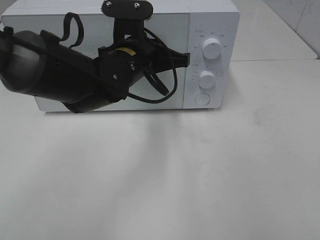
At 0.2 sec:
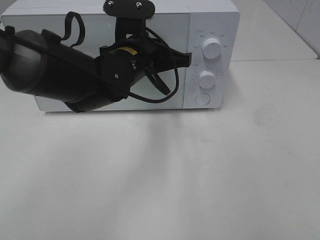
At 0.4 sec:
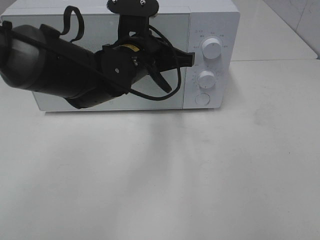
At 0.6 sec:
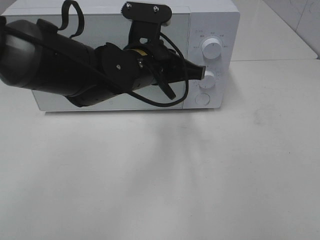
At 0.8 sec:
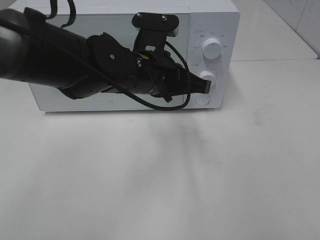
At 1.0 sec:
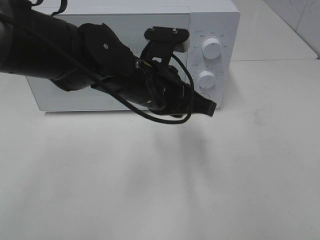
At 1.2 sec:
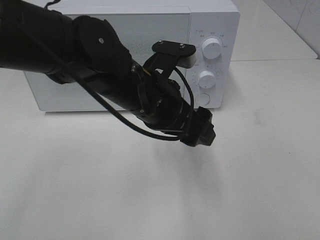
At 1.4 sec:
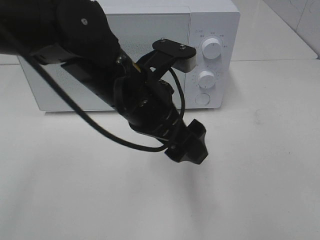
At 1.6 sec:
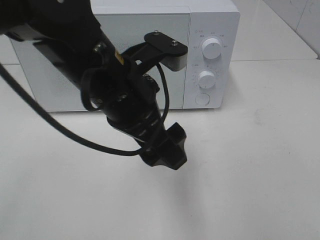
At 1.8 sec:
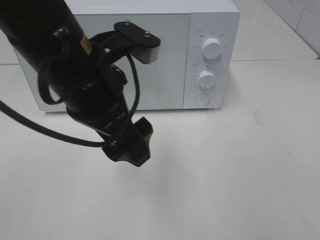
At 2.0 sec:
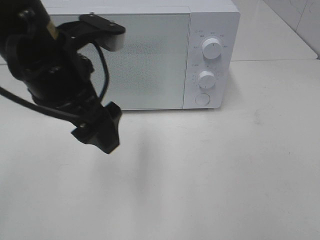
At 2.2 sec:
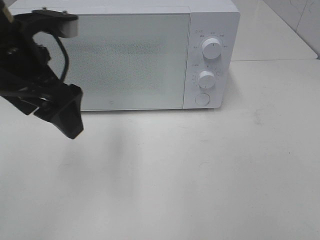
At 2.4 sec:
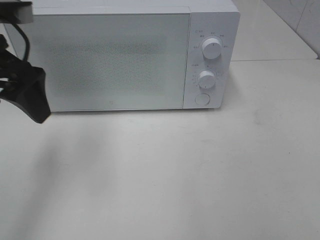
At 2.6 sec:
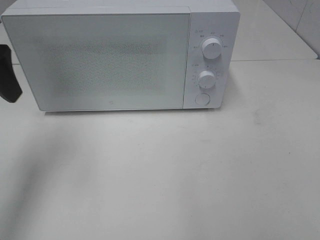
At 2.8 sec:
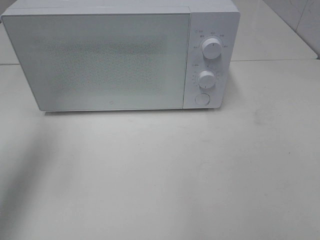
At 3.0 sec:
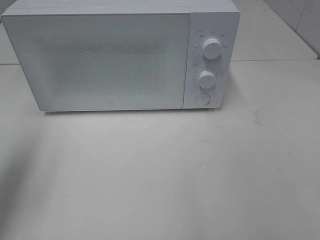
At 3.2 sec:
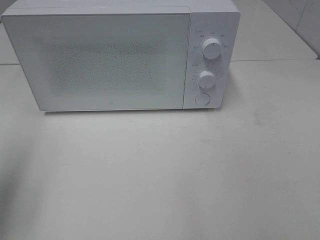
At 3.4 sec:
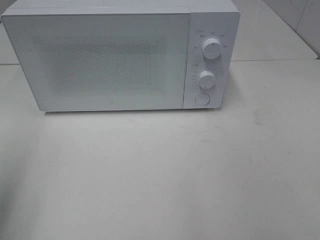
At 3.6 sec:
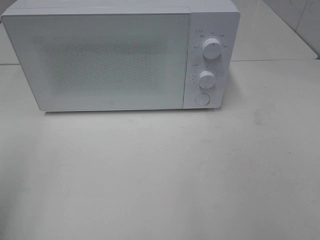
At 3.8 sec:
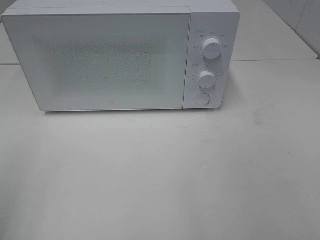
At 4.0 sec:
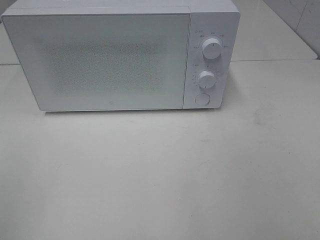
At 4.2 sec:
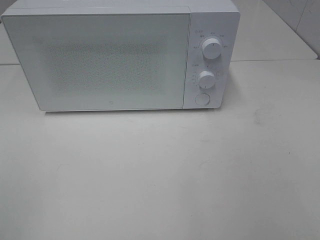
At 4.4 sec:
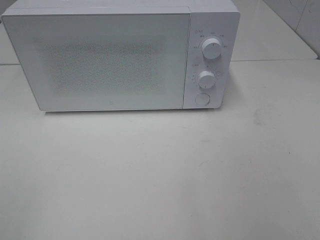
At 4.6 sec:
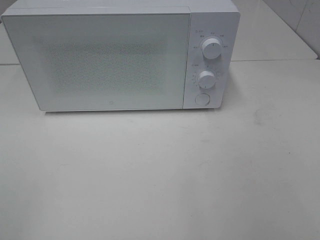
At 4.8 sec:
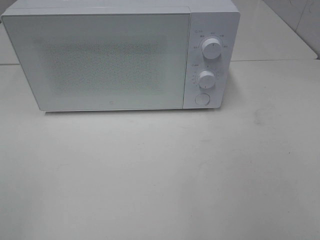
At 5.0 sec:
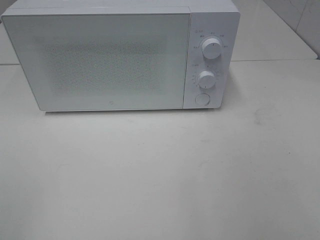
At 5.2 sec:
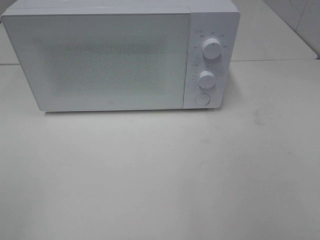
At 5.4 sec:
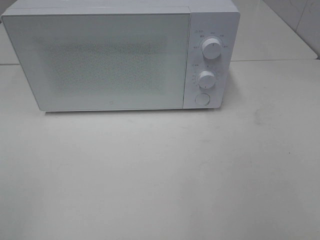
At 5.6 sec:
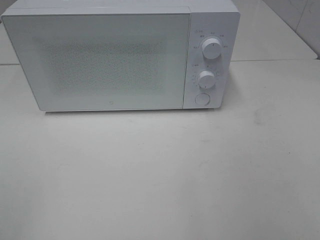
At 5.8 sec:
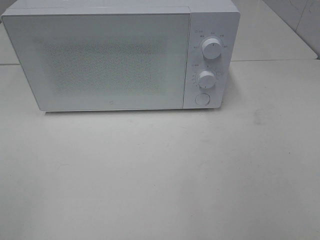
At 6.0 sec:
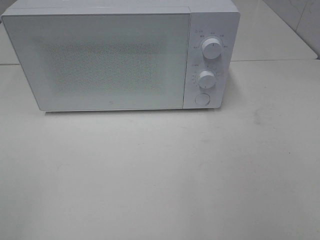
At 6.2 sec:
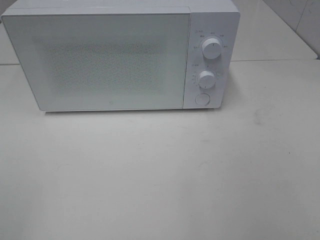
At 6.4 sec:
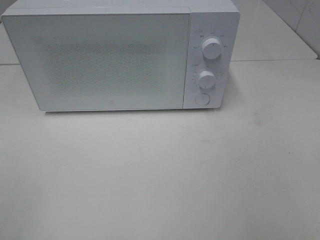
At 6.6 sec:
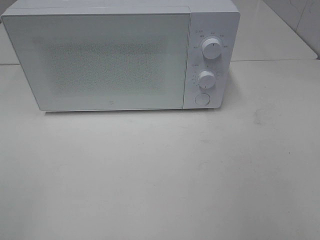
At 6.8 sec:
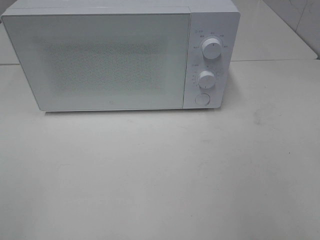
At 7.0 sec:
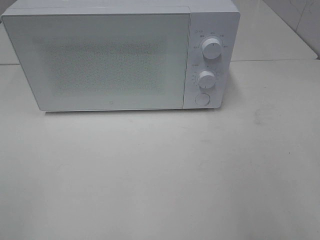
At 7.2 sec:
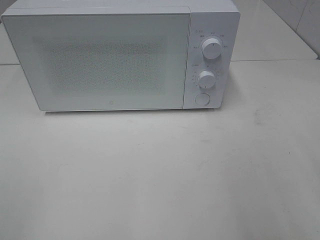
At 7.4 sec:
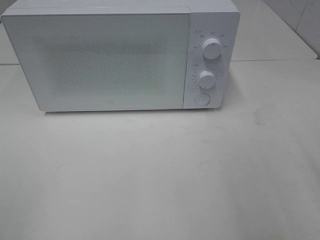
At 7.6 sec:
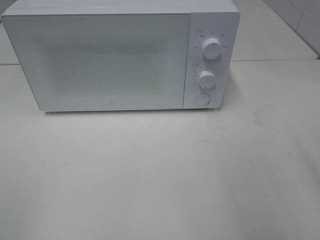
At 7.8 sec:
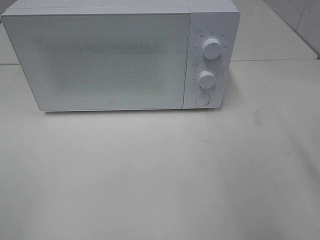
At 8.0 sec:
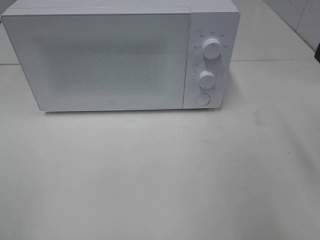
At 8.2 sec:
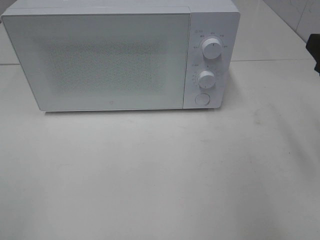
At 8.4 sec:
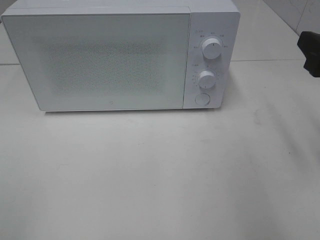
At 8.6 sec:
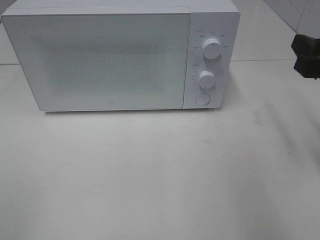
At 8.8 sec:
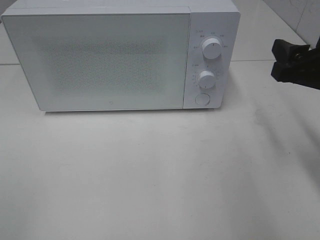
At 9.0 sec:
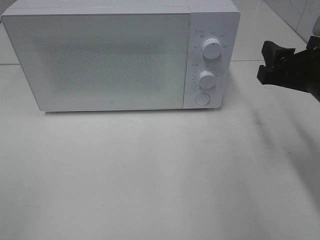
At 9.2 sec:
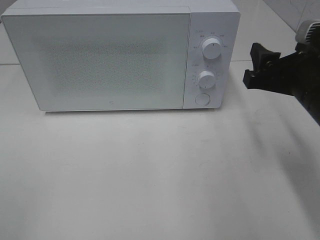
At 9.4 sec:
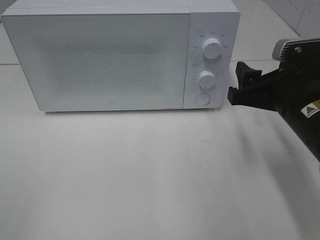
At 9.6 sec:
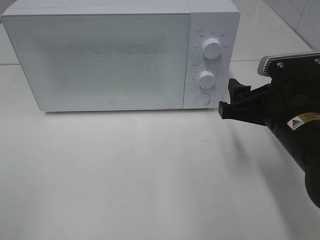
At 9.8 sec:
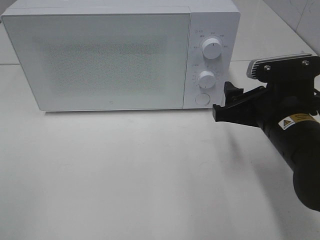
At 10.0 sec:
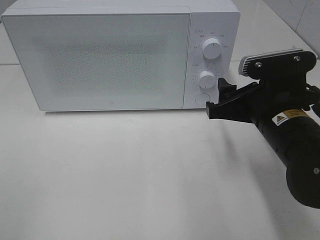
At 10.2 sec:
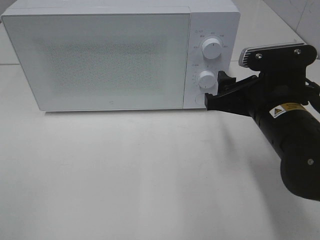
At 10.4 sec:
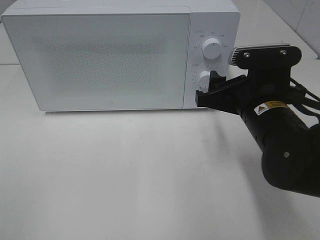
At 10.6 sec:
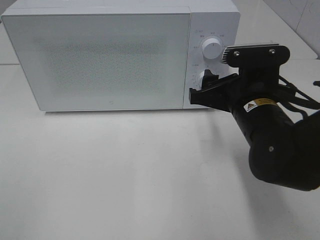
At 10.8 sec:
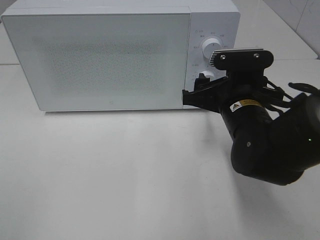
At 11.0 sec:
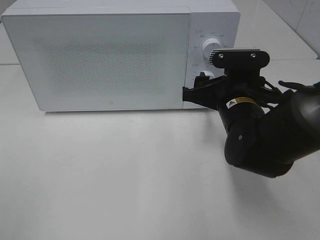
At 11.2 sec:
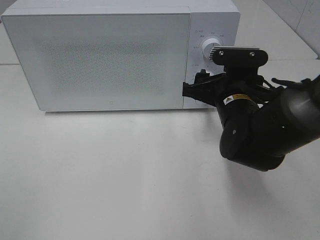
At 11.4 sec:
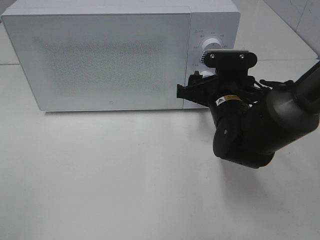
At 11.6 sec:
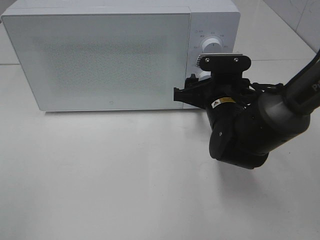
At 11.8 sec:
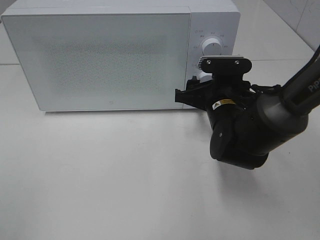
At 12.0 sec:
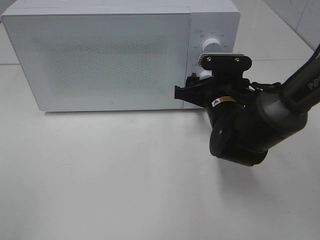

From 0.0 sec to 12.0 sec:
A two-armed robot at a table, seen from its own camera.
Task of the whole recording: Heat the burger.
From 0.0 sec to 1.6 sec: The left gripper travels backward and upward by approximately 10 cm, and opens up.
From 1.6 sec to 3.0 sec: The left gripper travels to the left by approximately 25 cm.
From 3.0 sec to 4.4 sec: The left gripper heads backward, covering about 20 cm.
From 4.4 sec to 6.0 sec: Neither gripper changes place.
From 7.6 sec to 9.0 sec: The right gripper goes some 10 cm forward.
From 9.0 sec to 10.4 sec: The right gripper moves to the left, some 10 cm.
From 10.4 sec to 12.0 sec: The right gripper shifts some 10 cm forward and downward.

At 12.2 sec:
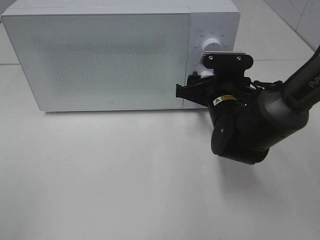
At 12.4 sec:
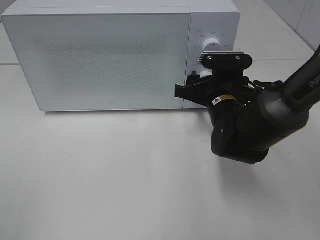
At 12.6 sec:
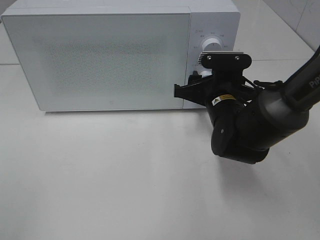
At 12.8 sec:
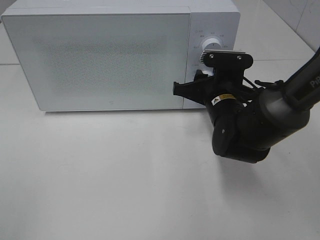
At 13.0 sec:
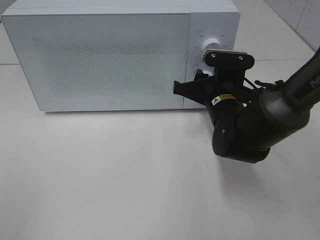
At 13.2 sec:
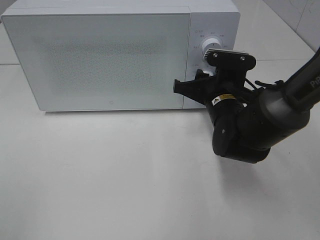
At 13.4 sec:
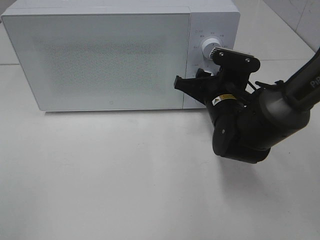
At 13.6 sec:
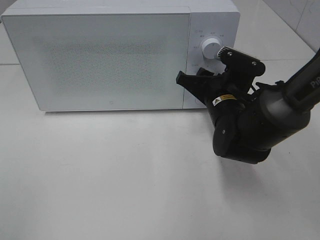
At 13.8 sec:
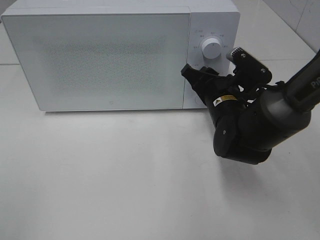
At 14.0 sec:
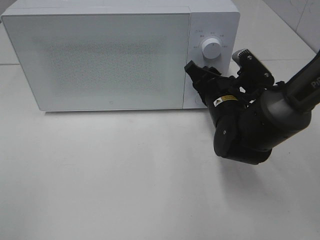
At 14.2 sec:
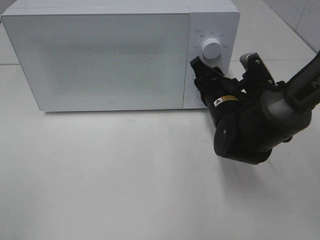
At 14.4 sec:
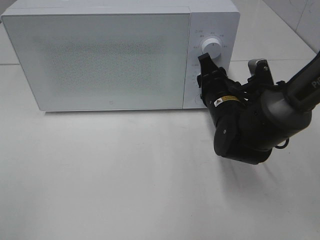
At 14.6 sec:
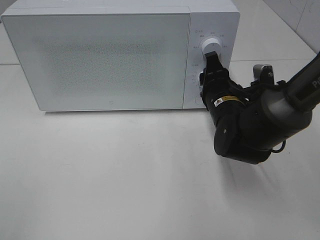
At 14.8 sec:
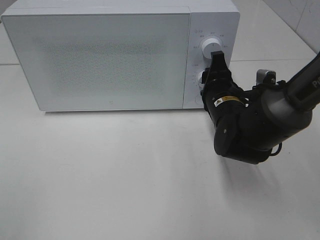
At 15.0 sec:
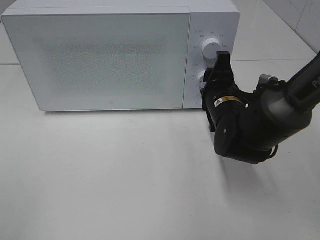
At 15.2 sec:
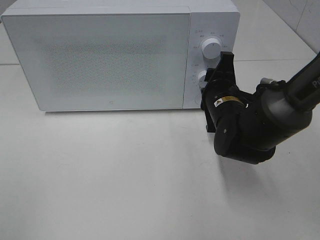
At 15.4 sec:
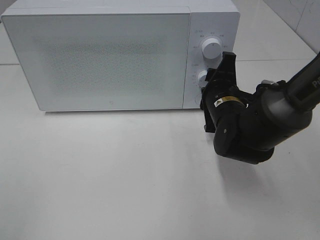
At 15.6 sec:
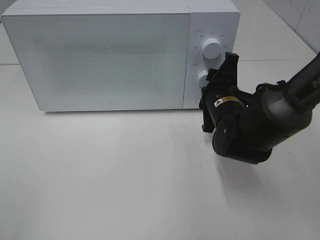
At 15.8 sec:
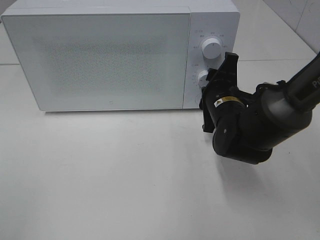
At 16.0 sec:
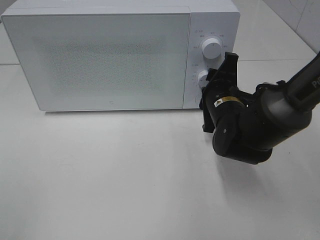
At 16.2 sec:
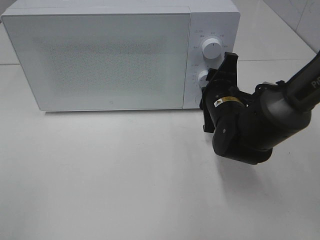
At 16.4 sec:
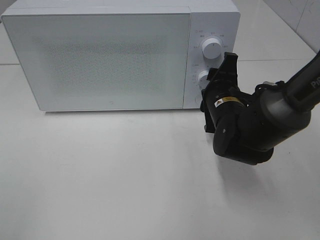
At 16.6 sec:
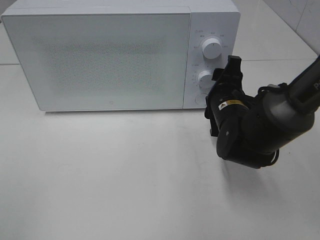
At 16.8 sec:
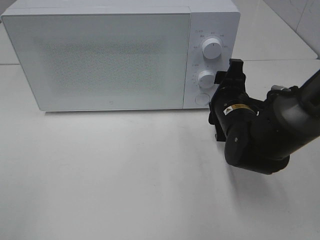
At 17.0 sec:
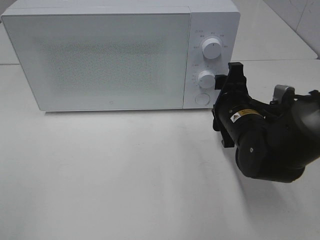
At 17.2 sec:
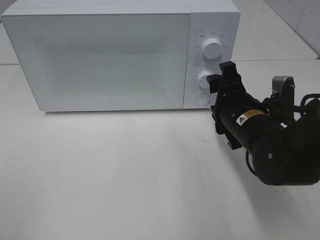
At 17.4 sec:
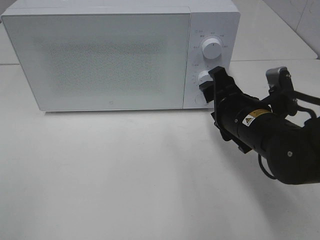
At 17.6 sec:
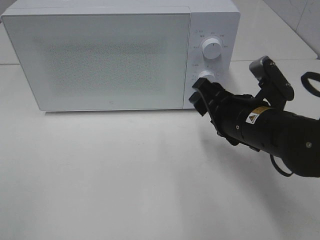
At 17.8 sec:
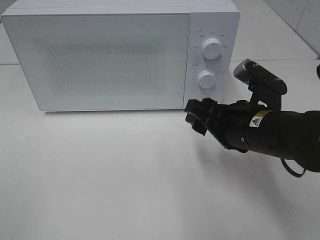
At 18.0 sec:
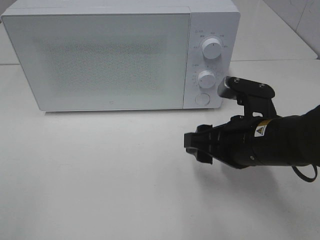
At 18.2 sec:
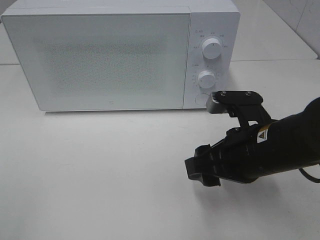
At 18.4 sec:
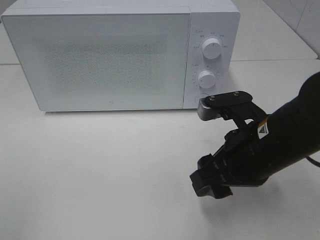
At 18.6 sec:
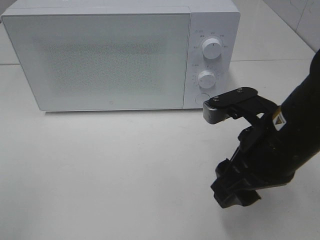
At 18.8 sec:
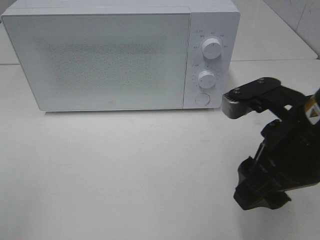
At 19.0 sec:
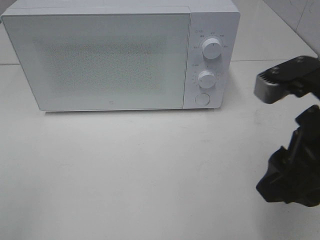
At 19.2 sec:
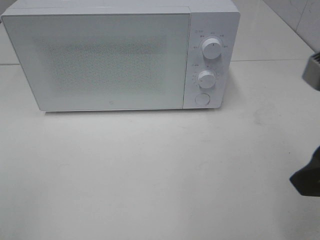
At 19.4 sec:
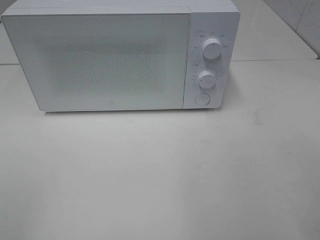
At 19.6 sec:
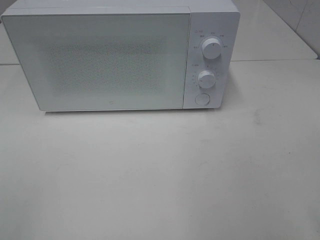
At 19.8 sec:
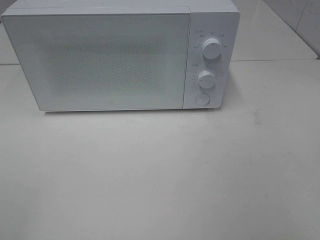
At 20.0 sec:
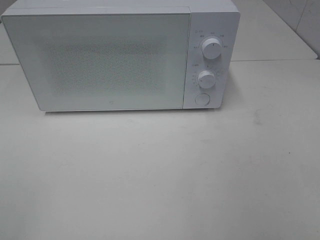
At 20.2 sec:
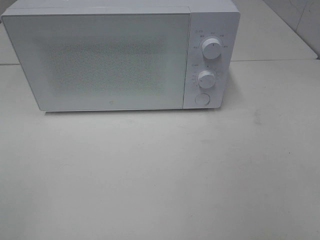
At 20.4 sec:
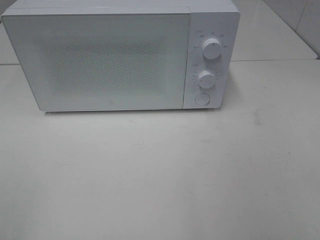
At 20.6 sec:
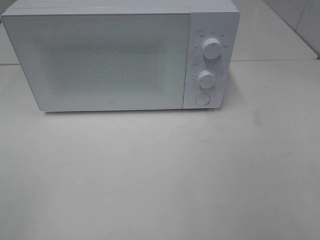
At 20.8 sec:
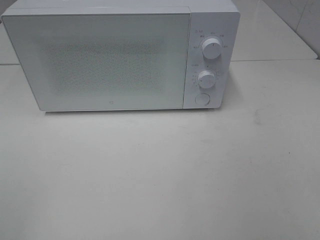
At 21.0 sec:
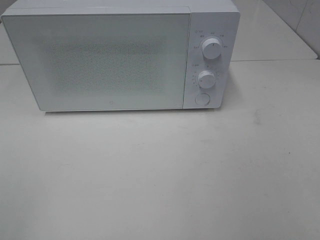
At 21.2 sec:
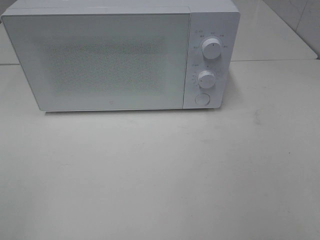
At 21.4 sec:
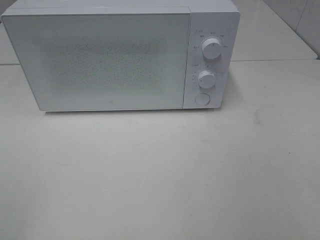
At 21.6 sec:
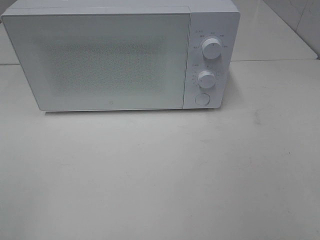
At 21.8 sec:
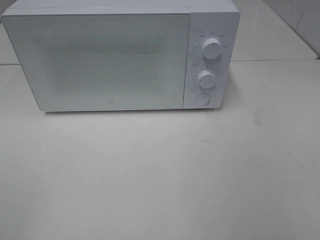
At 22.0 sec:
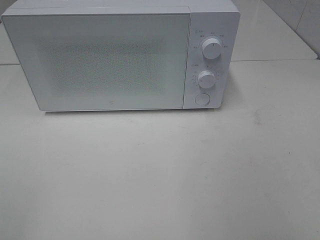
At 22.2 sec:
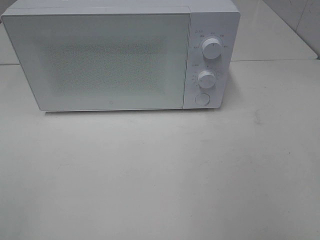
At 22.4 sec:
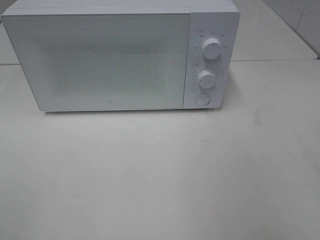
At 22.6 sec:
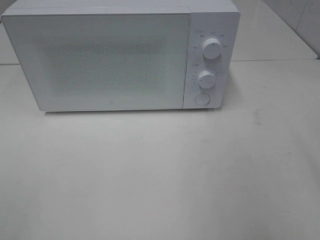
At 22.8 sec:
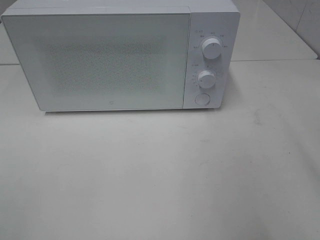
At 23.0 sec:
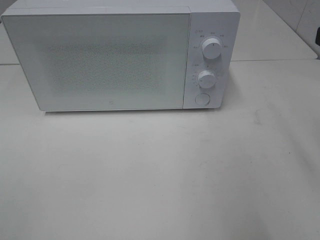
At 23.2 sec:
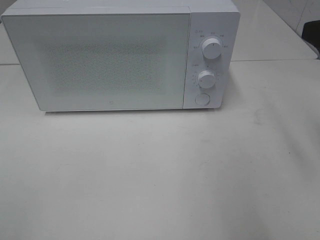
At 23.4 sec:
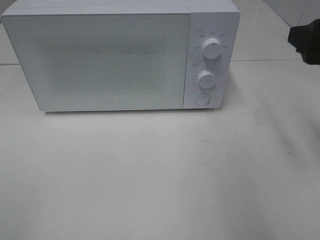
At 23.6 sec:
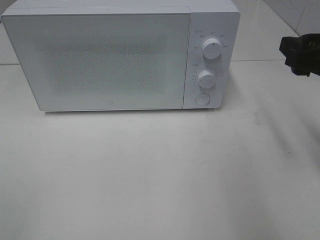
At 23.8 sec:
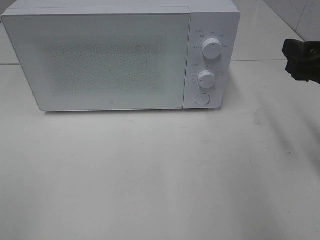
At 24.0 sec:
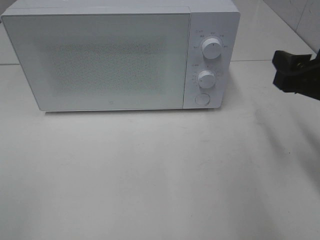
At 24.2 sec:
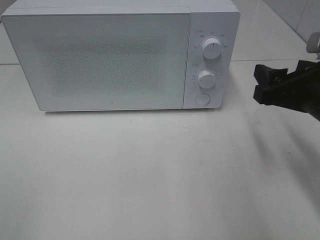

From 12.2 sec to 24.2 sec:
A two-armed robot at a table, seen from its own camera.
Task of the whole recording: Heat the burger.
Step, from 12.2 sec to 17.0 sec: Right hand: twist timer button.
From 15.2 sec to 16.6 sec: The grippers stay close to where they were, moving slightly.
From 16.6 sec to 18.2 sec: The right gripper travels backward by approximately 10 cm.
From 18.2 sec to 19.8 sec: The right gripper moves upward, backward and to the right, some 25 cm.
From 22.6 sec to 24.2 sec: The right gripper travels downward and forward by some 15 cm.
